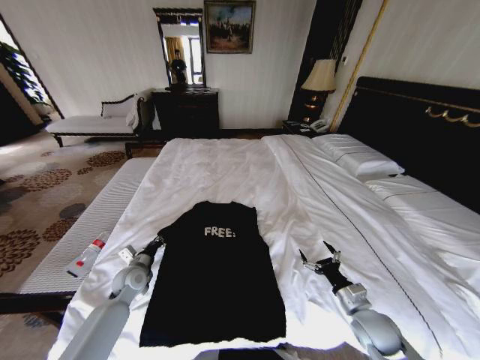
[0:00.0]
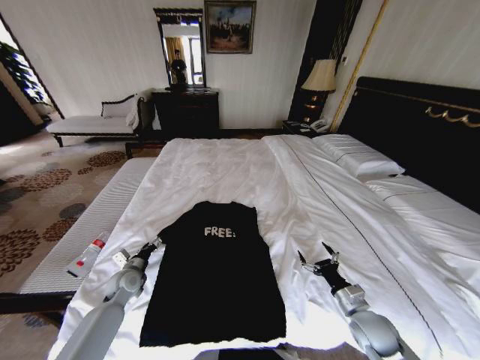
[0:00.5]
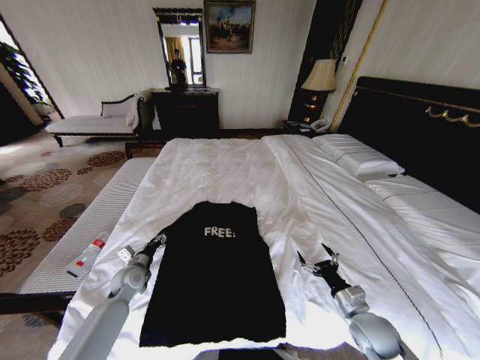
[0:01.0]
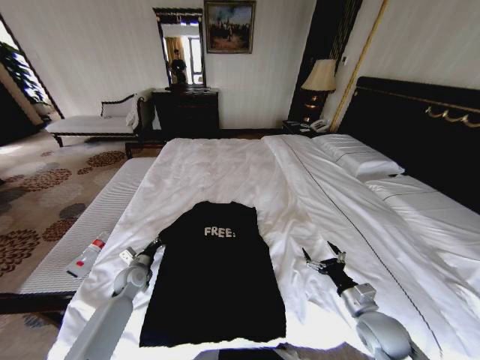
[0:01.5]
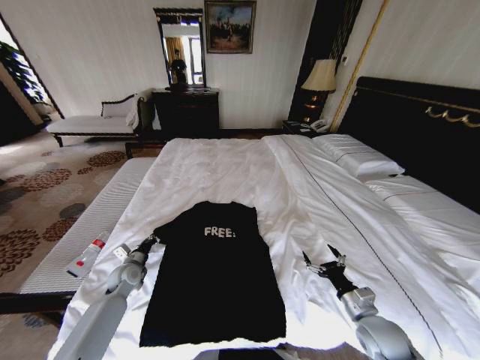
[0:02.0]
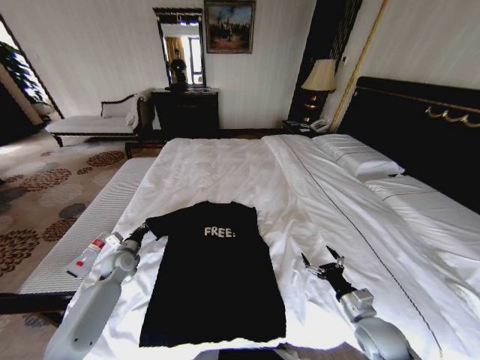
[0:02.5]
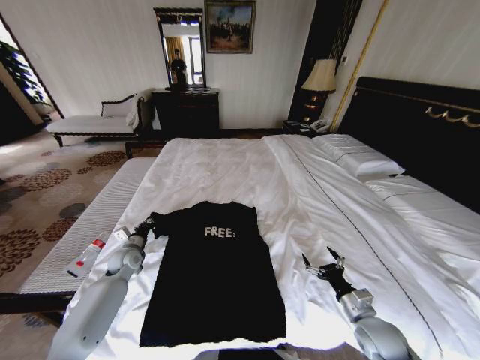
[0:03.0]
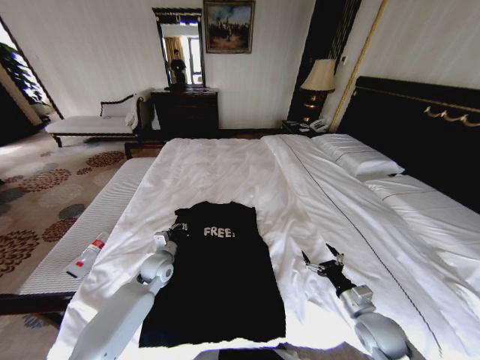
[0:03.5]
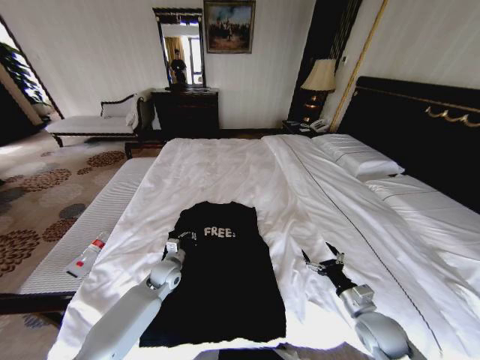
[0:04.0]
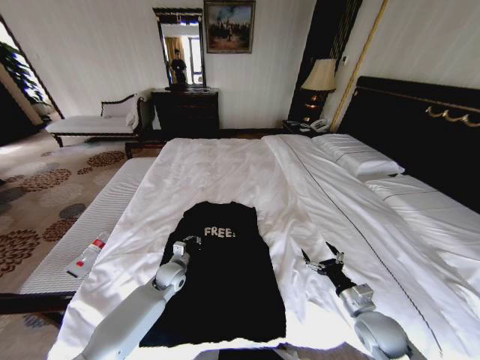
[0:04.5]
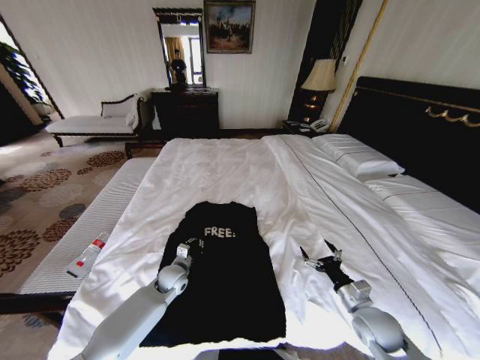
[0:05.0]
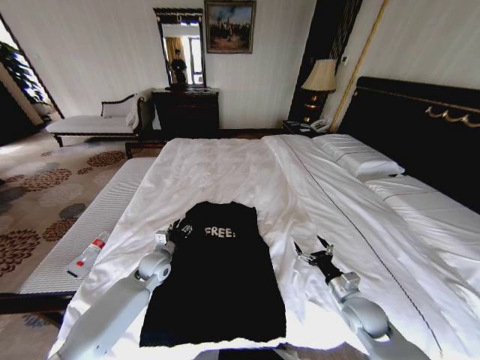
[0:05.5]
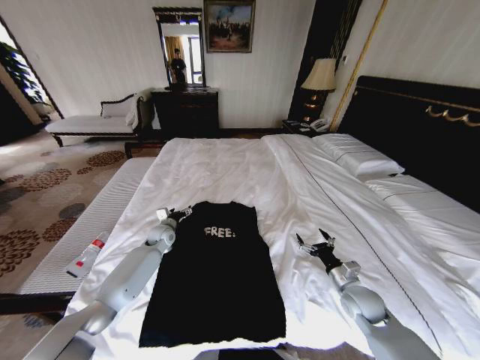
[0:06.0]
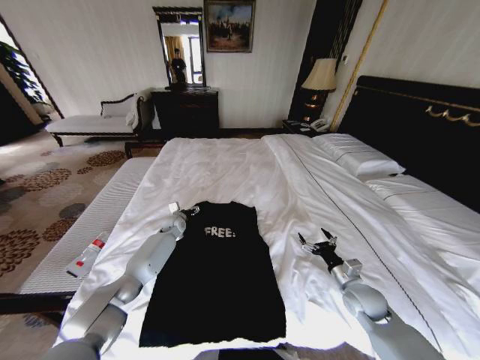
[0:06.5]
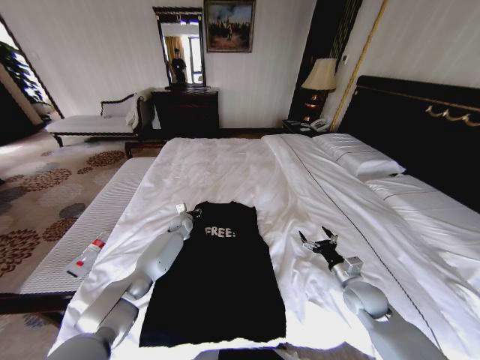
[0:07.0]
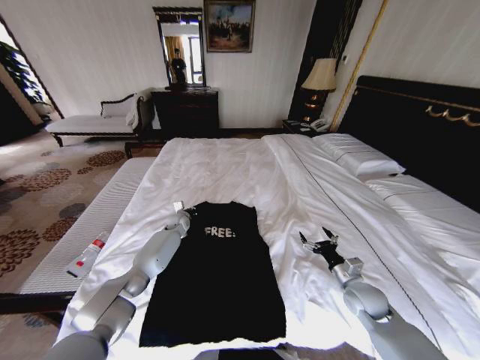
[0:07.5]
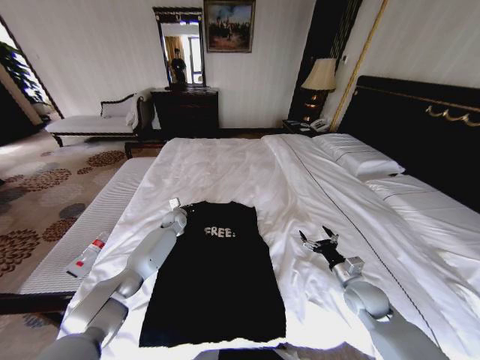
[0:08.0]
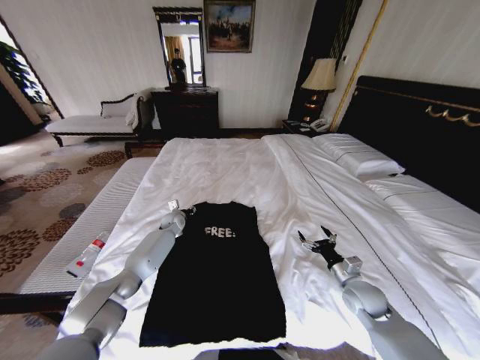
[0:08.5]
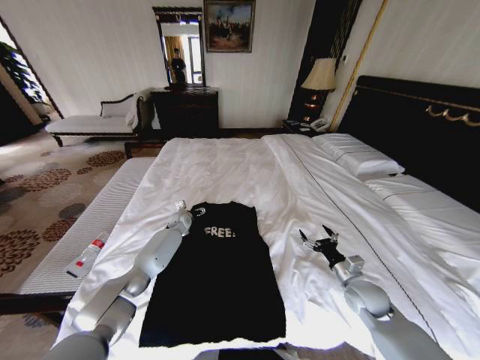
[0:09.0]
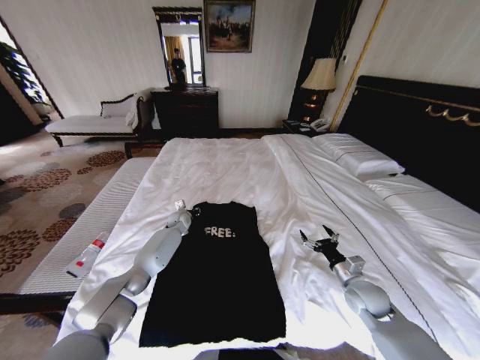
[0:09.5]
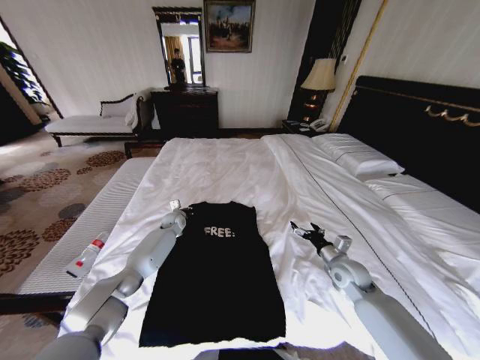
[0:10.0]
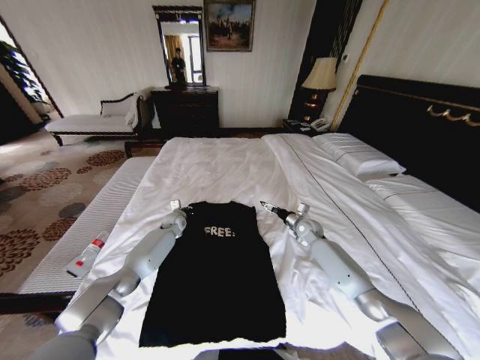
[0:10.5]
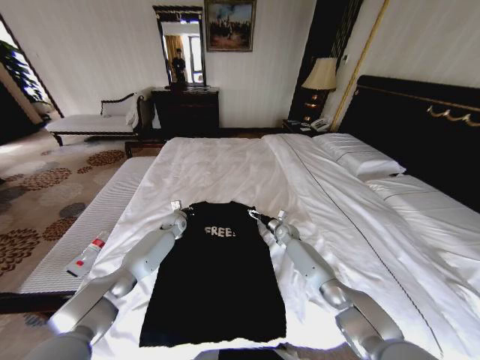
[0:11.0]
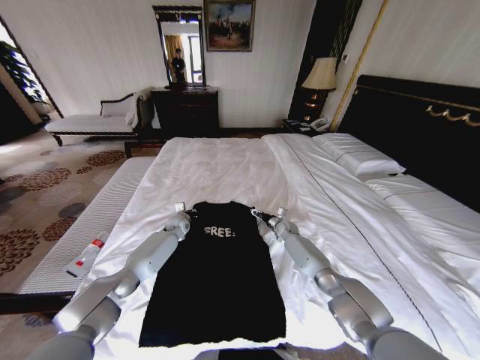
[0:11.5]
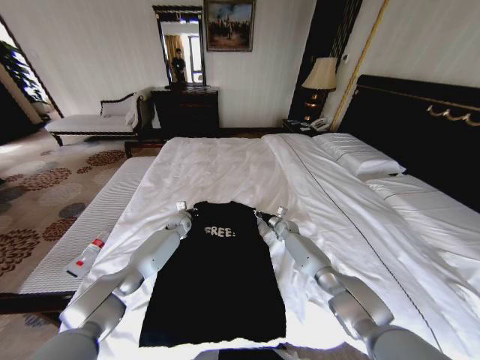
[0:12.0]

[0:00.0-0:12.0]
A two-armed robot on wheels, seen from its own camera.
Task of the whole recording: Fold the clothes on the bed.
0.0 to 2.0 s: The left gripper opens and closes again.
2.0 to 4.0 s: The left gripper is displaced to the right by about 15 cm.
4.0 to 6.0 s: The left gripper heads forward, covering approximately 15 cm, and opens, while the right gripper shifts approximately 5 cm forward.
6.0 to 8.0 s: The left gripper travels forward by about 10 cm, and closes its fingers.
8.0 to 10.0 s: The right gripper is displaced forward by roughly 5 cm, while the left gripper opens, then closes once more.
10.0 to 12.0 s: The right gripper goes about 25 cm forward, and closes up.

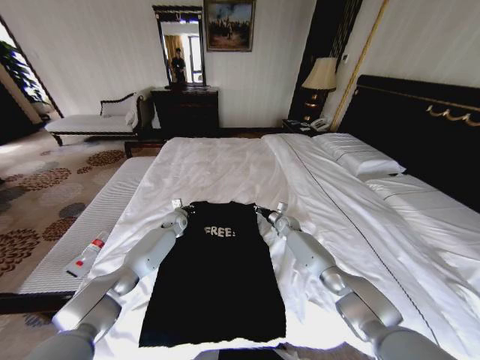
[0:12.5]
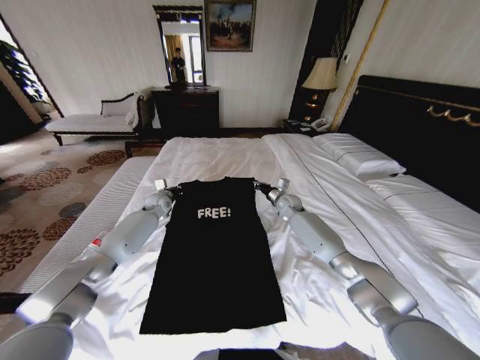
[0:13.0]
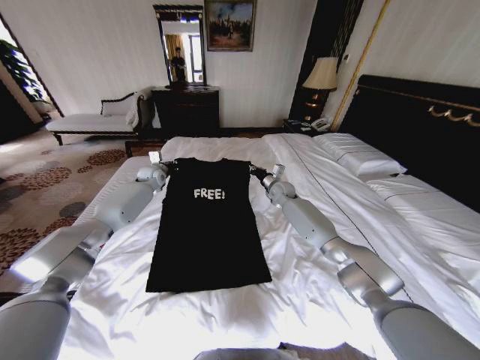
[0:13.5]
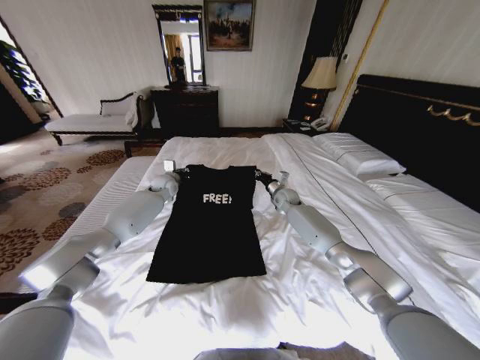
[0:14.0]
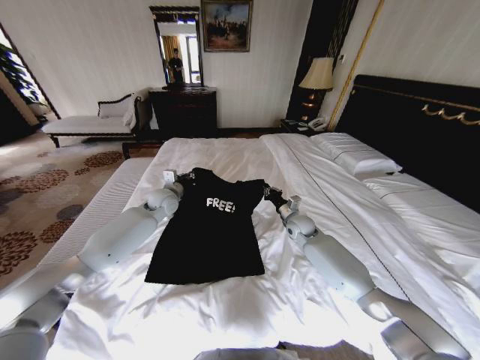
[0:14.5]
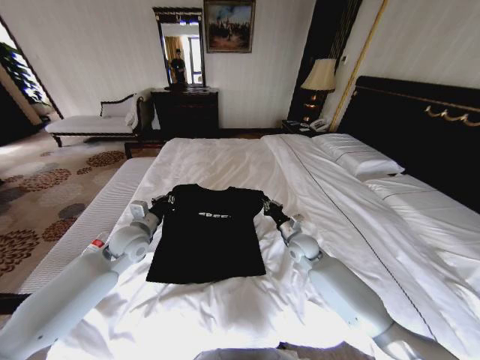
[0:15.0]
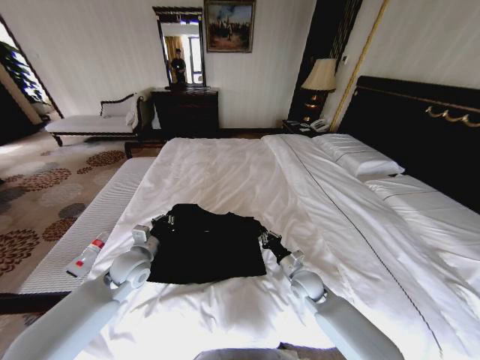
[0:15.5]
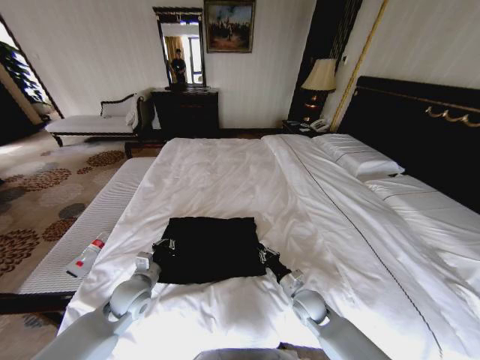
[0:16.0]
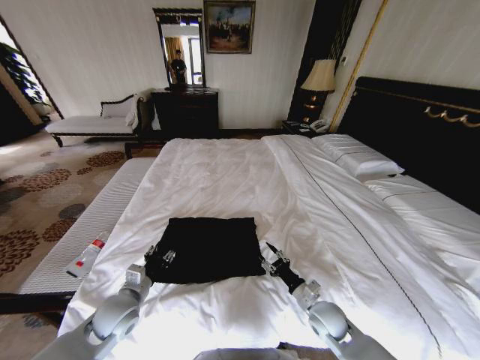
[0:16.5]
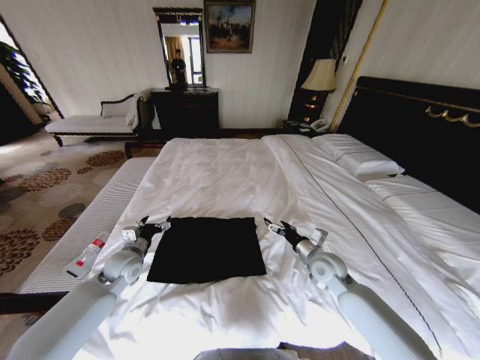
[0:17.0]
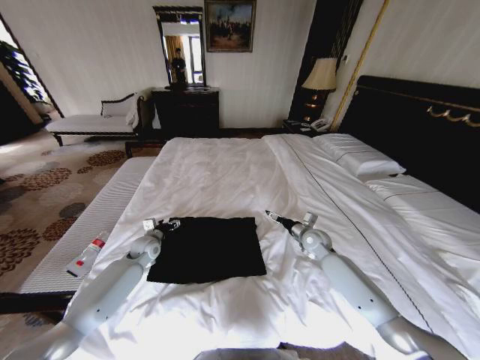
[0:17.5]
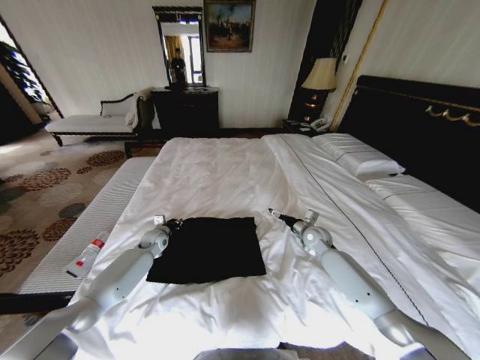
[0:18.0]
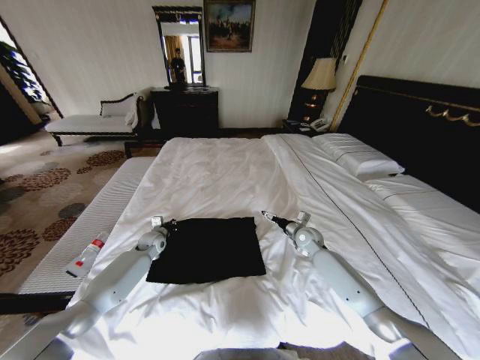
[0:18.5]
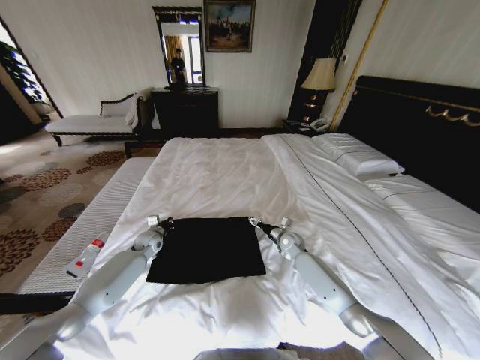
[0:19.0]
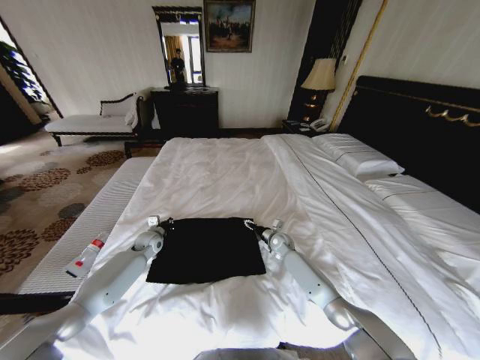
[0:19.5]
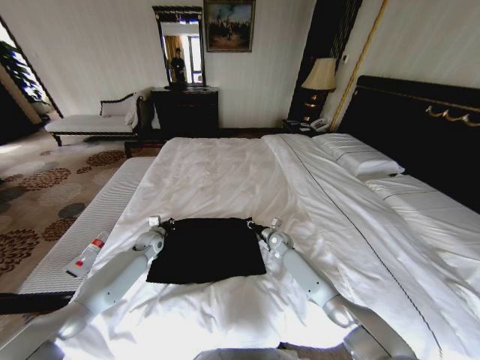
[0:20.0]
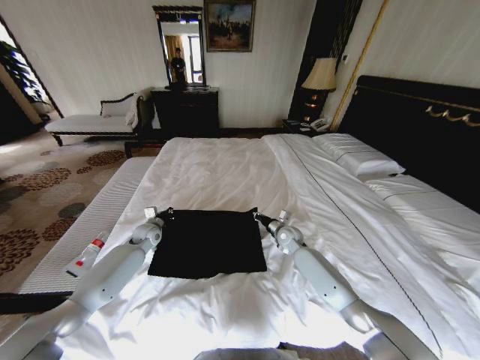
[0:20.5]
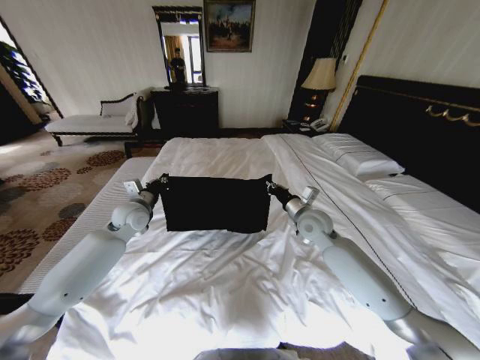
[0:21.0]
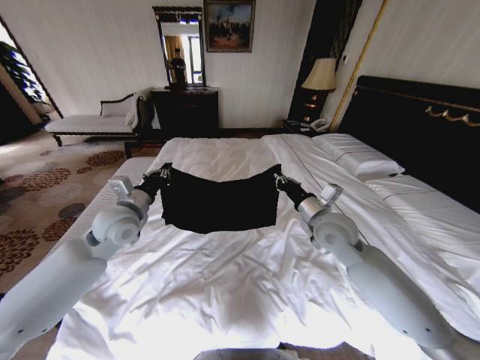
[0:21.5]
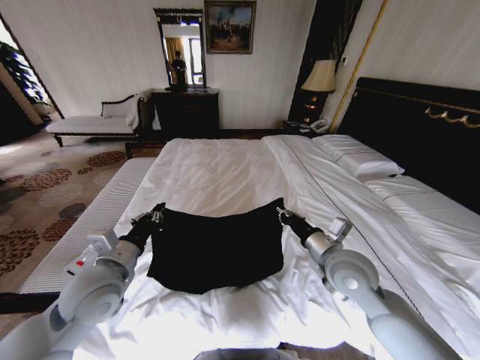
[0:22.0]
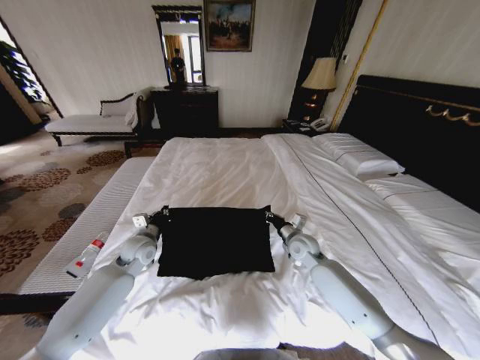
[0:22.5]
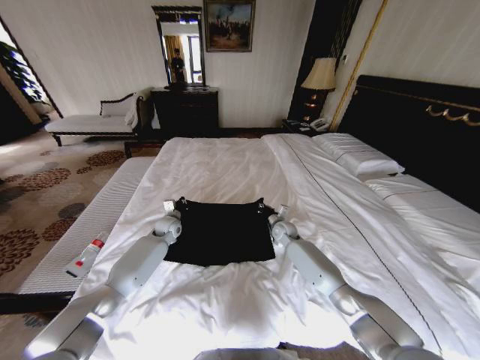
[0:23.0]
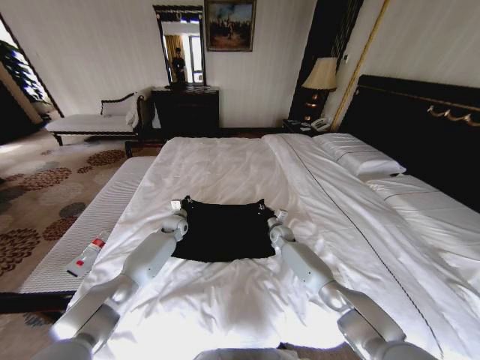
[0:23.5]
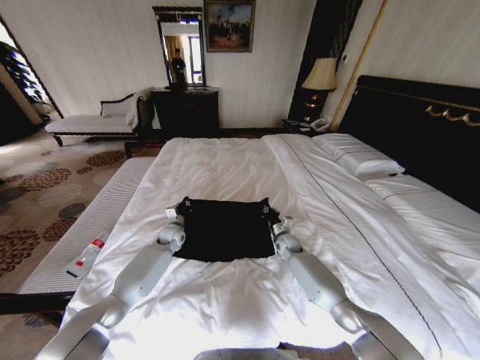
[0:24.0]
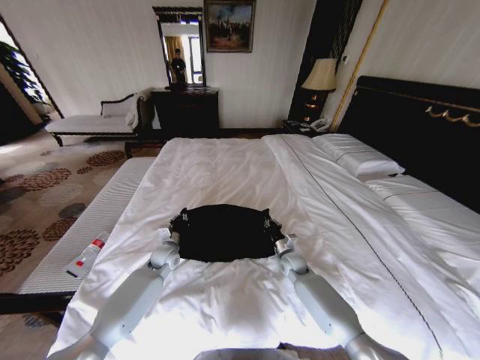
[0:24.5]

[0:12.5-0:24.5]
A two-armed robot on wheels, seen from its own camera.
Task of the whole recording: Fold the clothes on the bed.
12.5 to 14.5 s: The right gripper shifts roughly 10 cm upward and backward; the left gripper travels upward by about 15 cm.
14.5 to 16.5 s: Both grippers travel together backward, some 30 cm. The right gripper opens. Meanwhile the left gripper opens up.
16.5 to 18.5 s: Both grippers travel together forward, about 25 cm. The right gripper opens up. The left gripper closes its fingers.
18.5 to 20.5 s: The right gripper heads to the left, covering approximately 5 cm, and closes.
20.5 to 22.5 s: The right gripper moves backward, approximately 10 cm, and moves approximately 20 cm upward and comes back. The left gripper shifts some 10 cm backward and upward.
22.5 to 24.5 s: The left gripper is displaced downward and to the right by roughly 10 cm, and moves some 15 cm forward and comes back. Meanwhile the right gripper shifts roughly 15 cm downward.

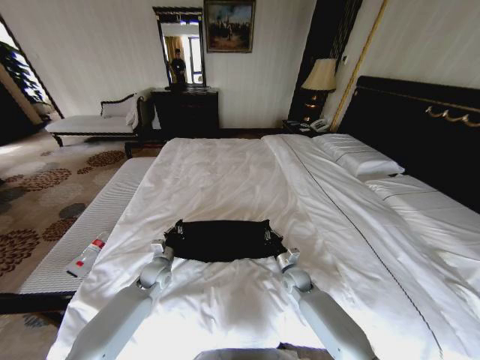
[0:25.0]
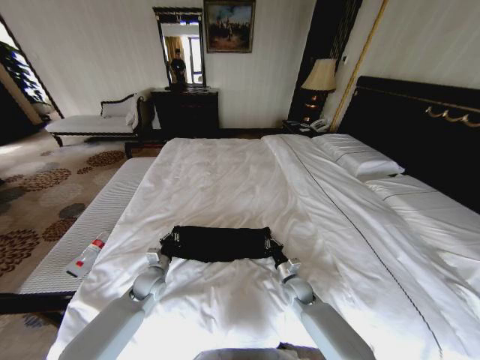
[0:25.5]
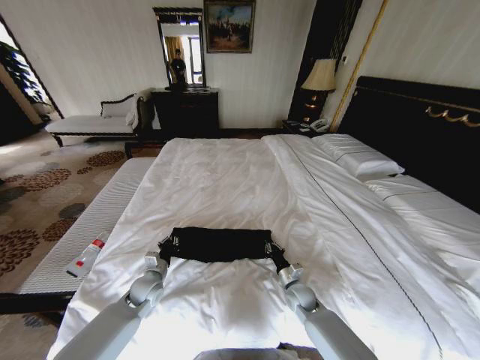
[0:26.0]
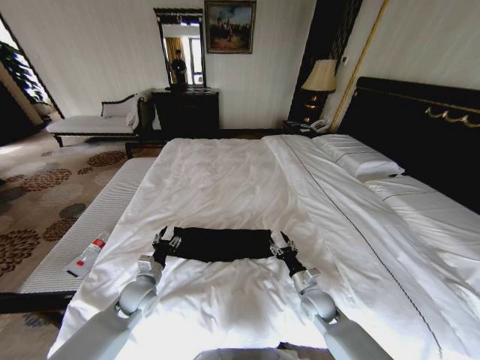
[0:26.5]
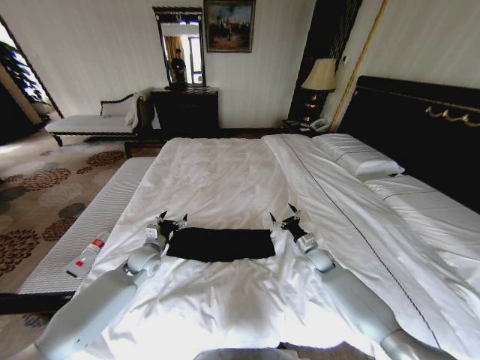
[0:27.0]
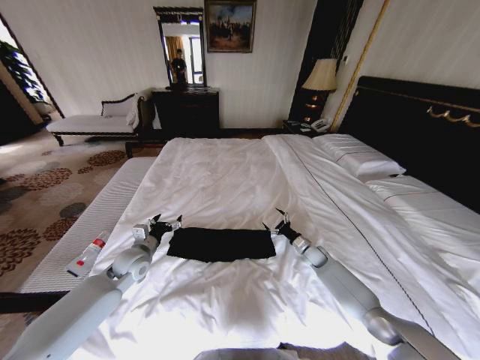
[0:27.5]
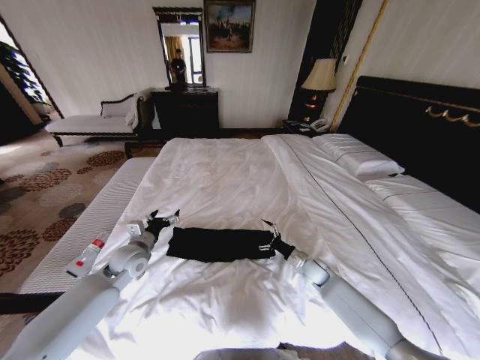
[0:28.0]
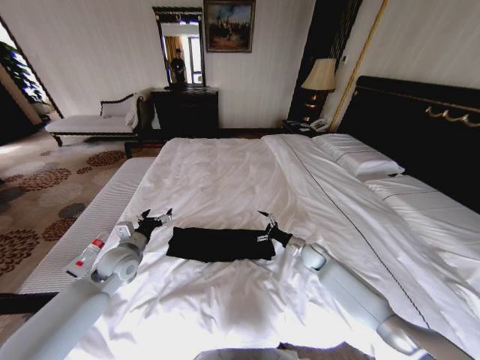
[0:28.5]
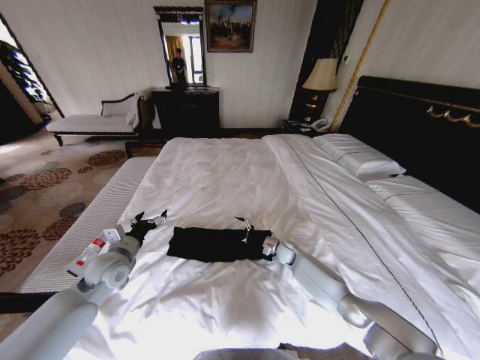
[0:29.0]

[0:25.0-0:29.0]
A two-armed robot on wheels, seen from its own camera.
Task of the whole recording: Fold the clothes on the bed.
25.0 to 27.0 s: The left gripper heads upward, covering about 5 cm, moves some 5 cm backward and comes back, and opens. The right gripper heads to the right and forward, covering some 10 cm, and opens up.
27.0 to 29.0 s: The left gripper is displaced upward and backward by some 10 cm. The right gripper shifts about 10 cm to the left and forward.
